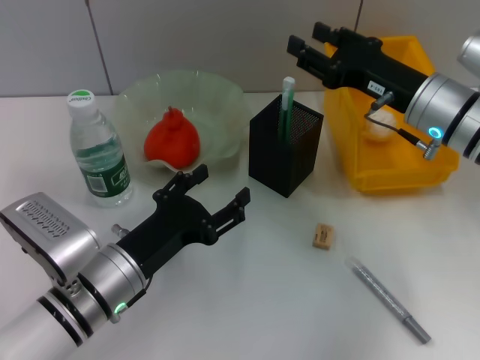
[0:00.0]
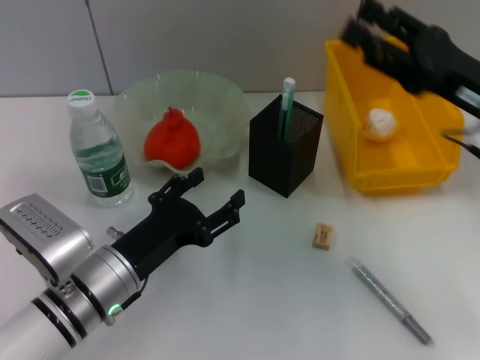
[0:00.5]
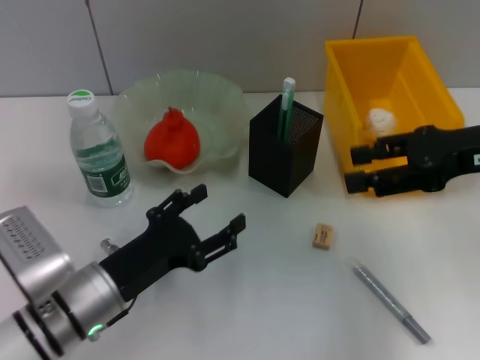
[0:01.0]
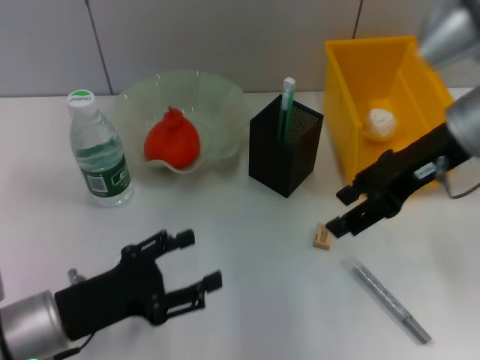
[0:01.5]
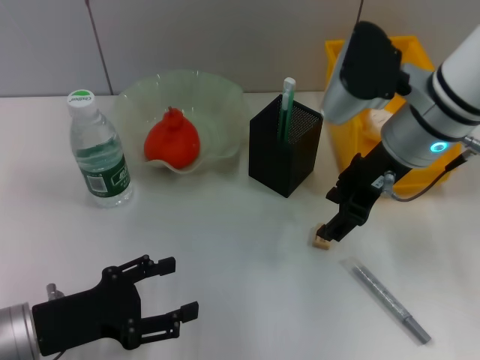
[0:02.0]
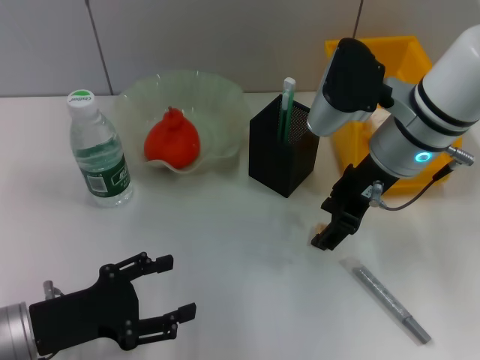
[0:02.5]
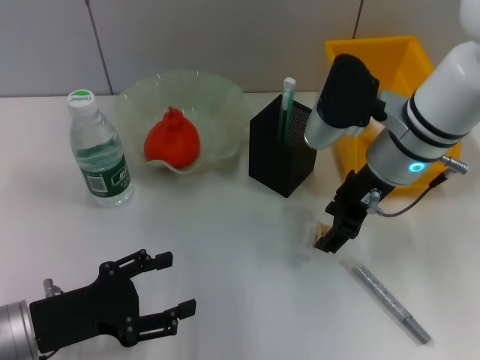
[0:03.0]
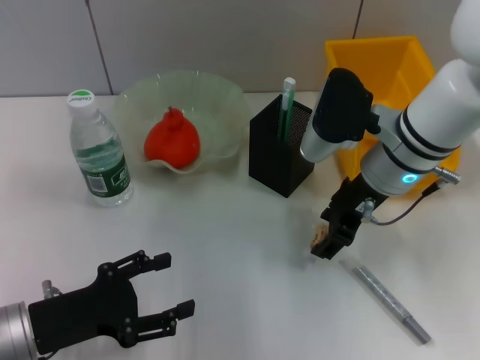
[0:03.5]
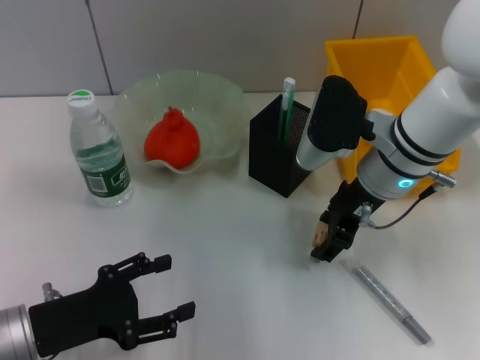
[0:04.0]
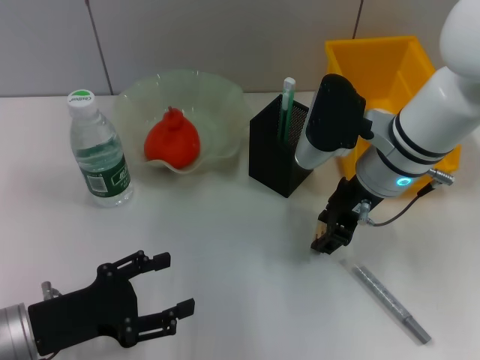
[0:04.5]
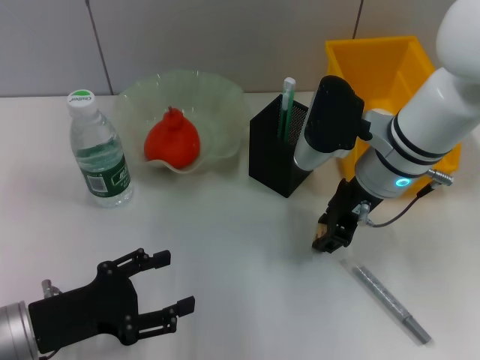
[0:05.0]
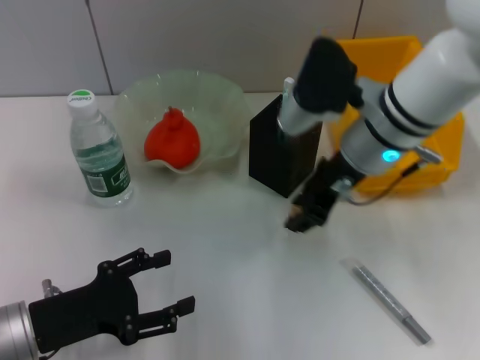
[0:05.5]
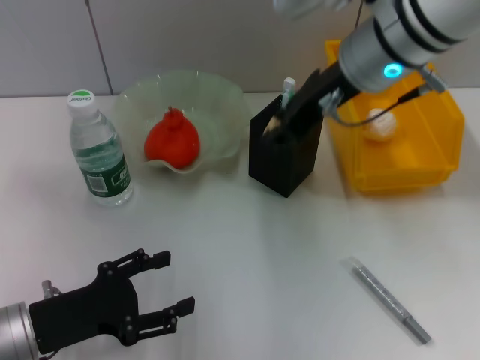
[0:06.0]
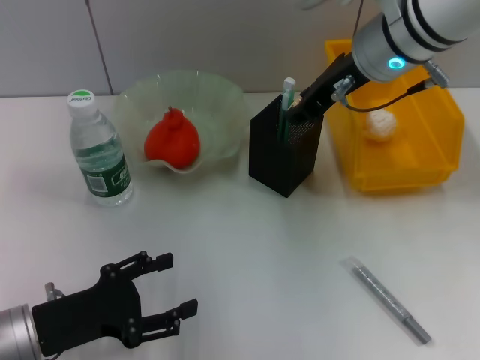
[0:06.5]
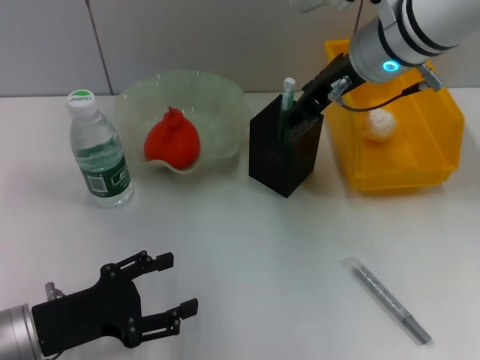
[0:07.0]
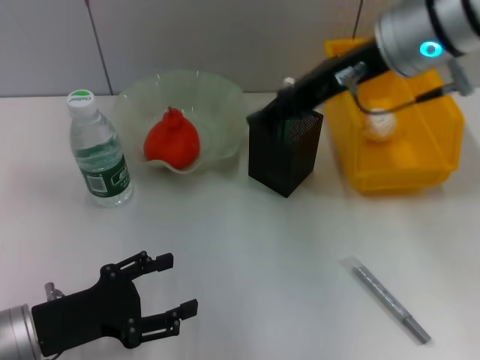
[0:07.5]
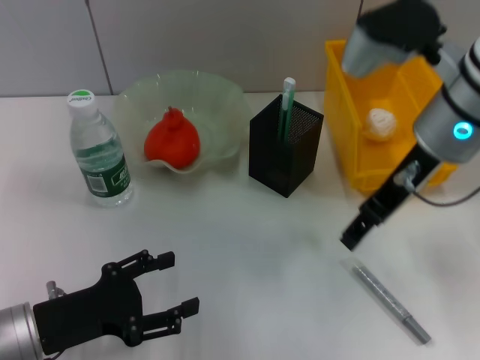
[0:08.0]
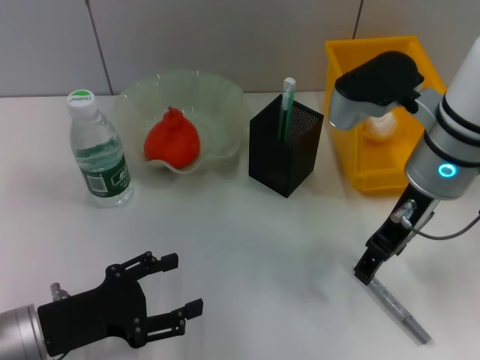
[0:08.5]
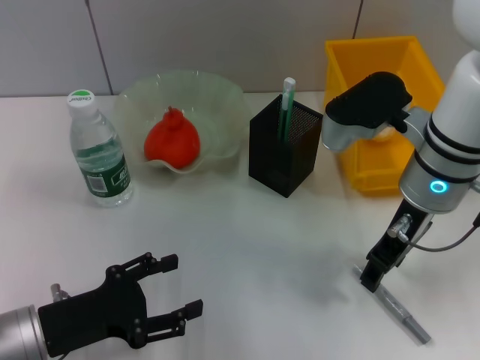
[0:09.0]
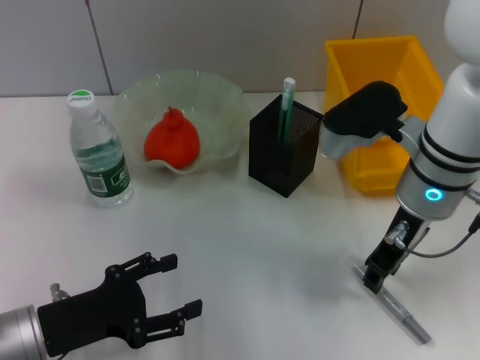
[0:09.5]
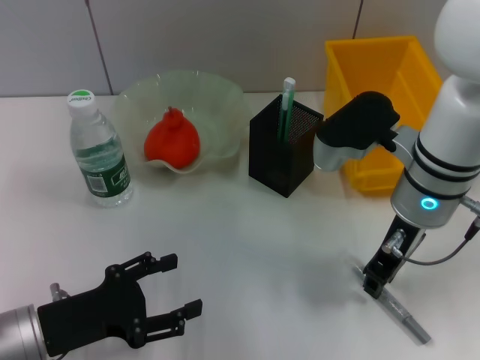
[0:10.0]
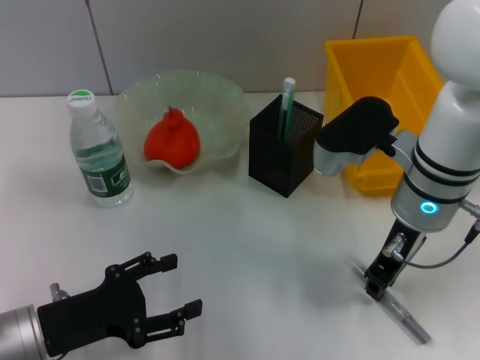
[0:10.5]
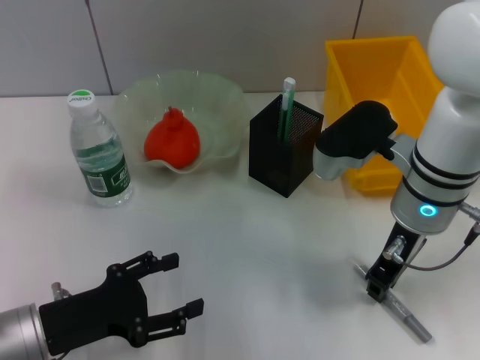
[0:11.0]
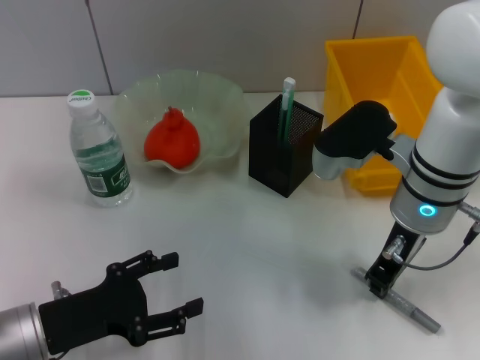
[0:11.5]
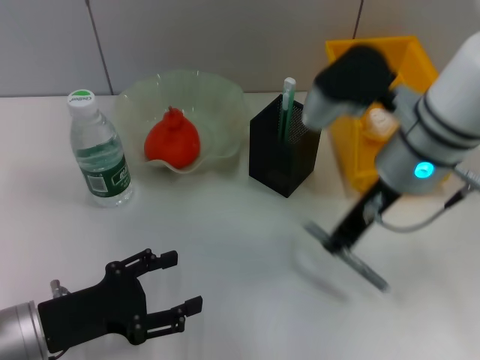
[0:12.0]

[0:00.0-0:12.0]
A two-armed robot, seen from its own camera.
Step, 0:00.5 to 0:05.0: Grab the eraser with the right hand.
Step, 0:05.5 to 0:07.0: Put the eraser into the pen holder with the right hand.
Step, 0:07.5 to 0:11.5: Grab the gray glue with the right hand.
0:00.0 to 0:02.0: The left gripper heads to the left, covering some 10 cm; the right gripper goes approximately 10 cm upward and to the left, and opens up.
0:02.0 to 0:04.0: The right gripper moves downward, approximately 5 cm.
0:04.0 to 0:06.0: The right gripper goes some 10 cm upward, and closes its fingers.
0:06.0 to 0:08.0: The right gripper shifts by about 5 cm, and opens its fingers.
0:08.0 to 0:10.0: The right gripper heads downward, covering some 5 cm, and closes up.
0:10.0 to 0:12.0: The right gripper closes its fingers.

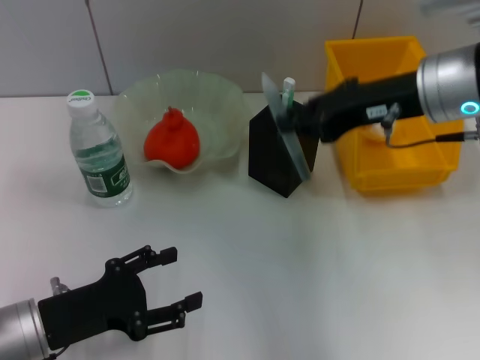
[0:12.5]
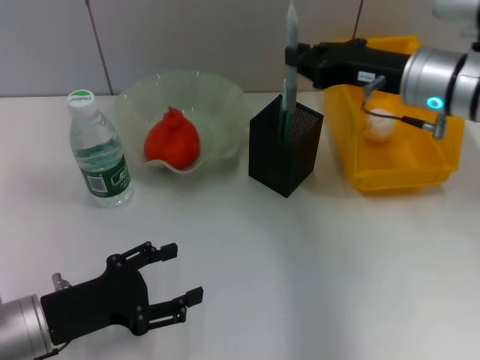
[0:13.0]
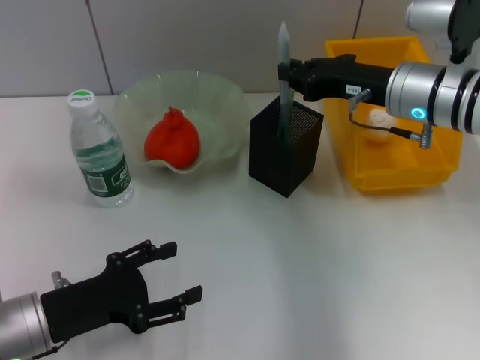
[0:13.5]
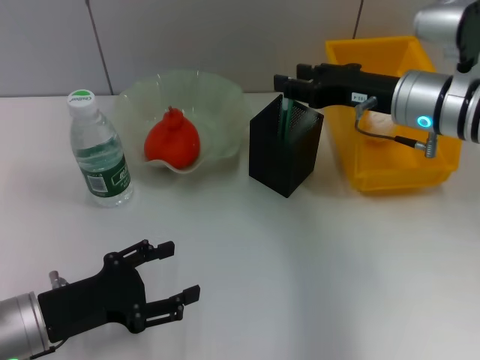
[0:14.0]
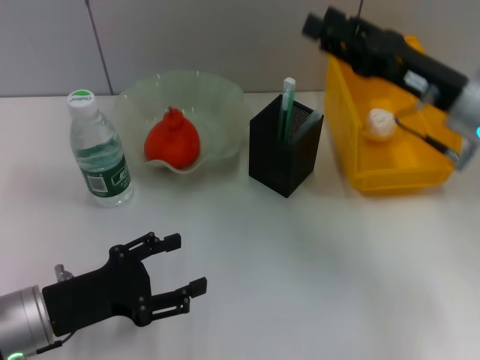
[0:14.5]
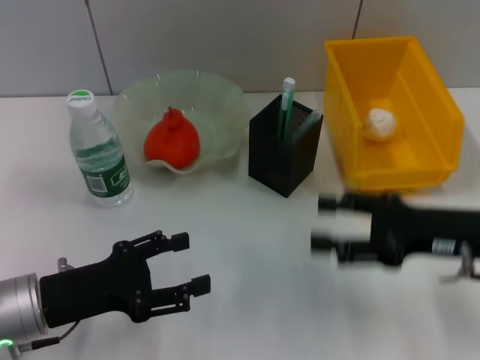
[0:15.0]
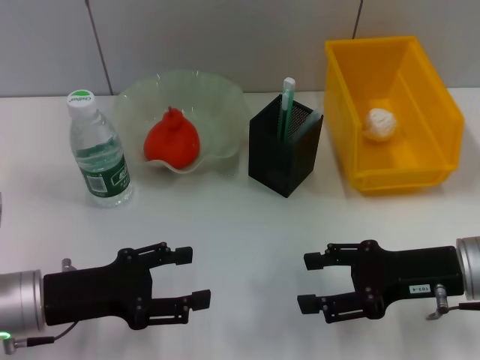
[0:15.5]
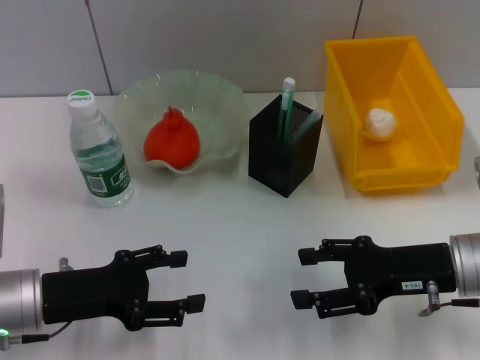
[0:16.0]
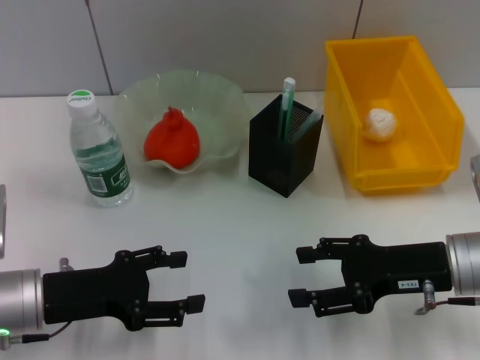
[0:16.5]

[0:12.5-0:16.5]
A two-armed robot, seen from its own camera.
0:12.5 to 0:14.5: The right gripper is displaced downward by approximately 5 cm, and opens up.
0:14.5 to 0:16.5: The right gripper moves downward and backward, approximately 10 cm.

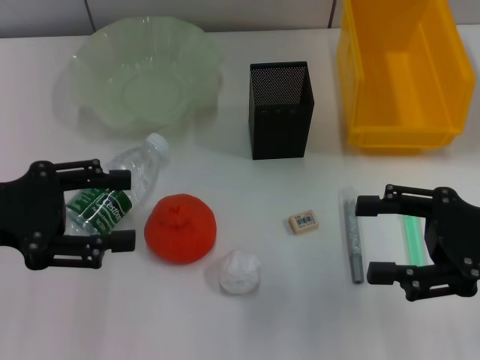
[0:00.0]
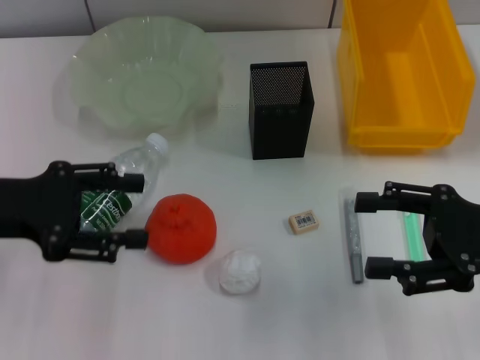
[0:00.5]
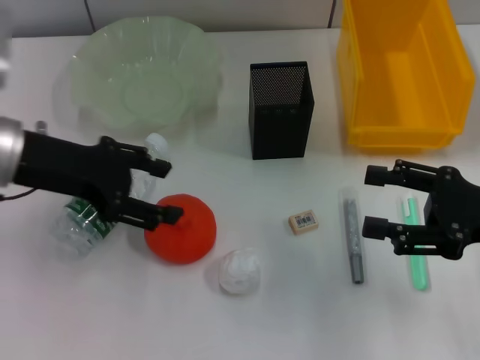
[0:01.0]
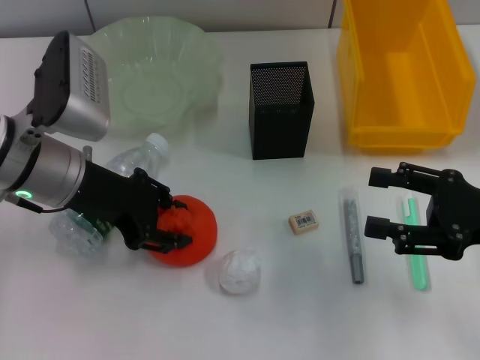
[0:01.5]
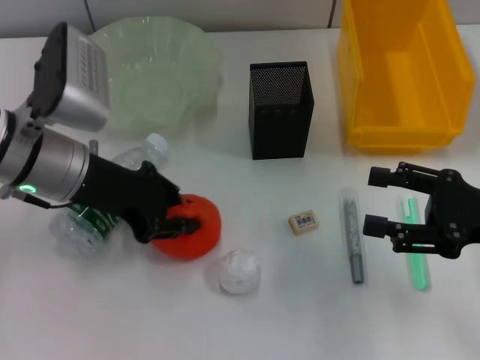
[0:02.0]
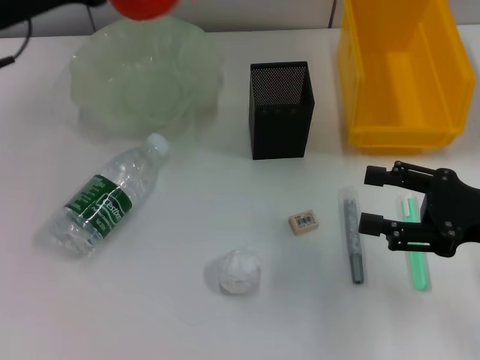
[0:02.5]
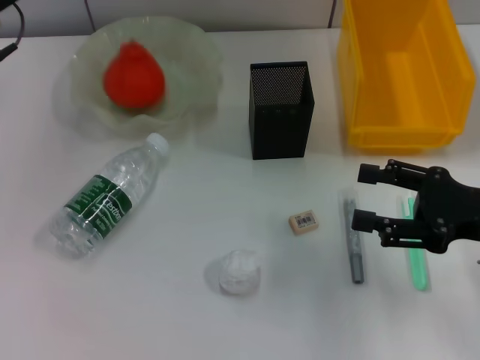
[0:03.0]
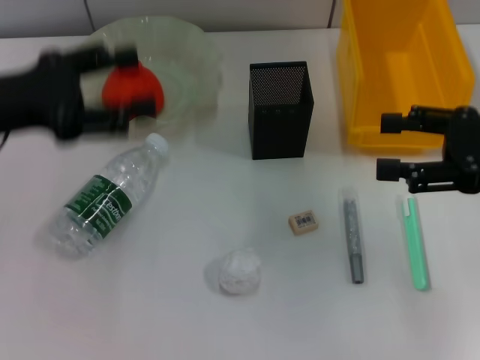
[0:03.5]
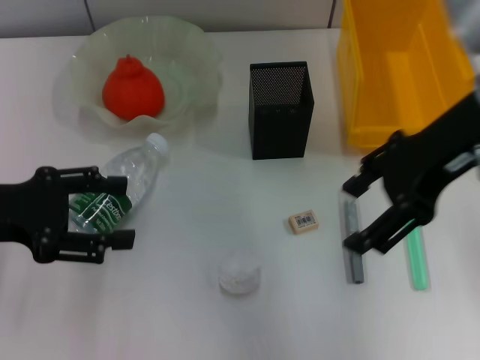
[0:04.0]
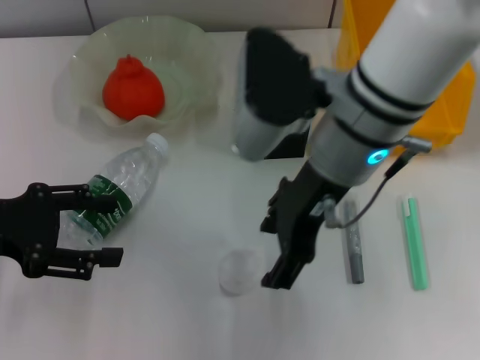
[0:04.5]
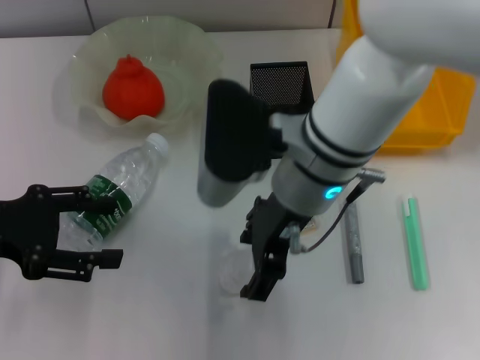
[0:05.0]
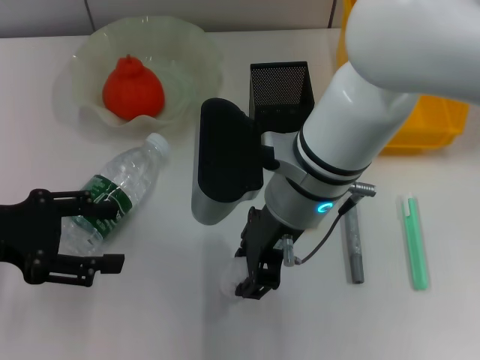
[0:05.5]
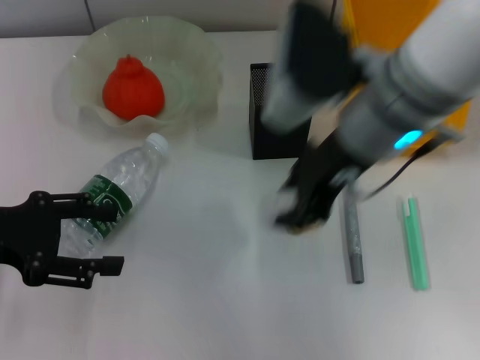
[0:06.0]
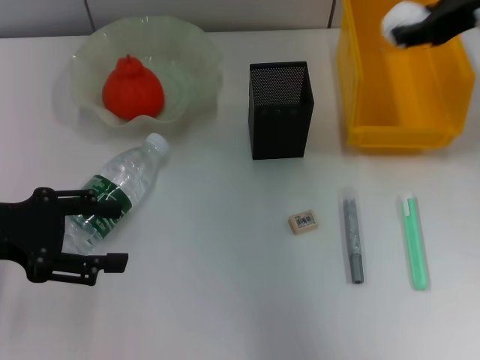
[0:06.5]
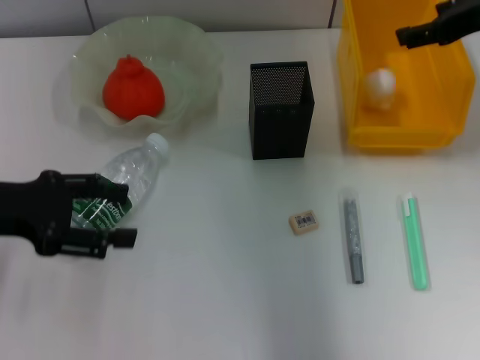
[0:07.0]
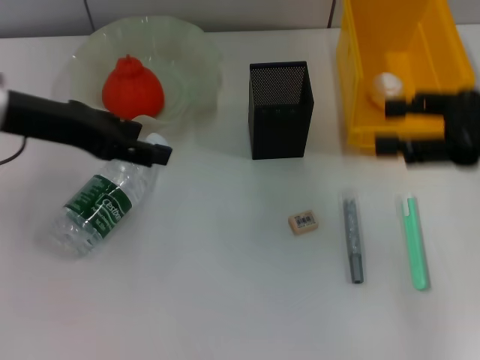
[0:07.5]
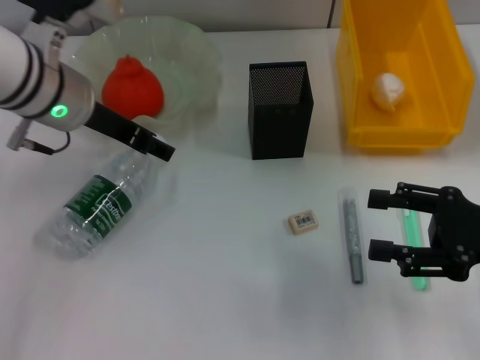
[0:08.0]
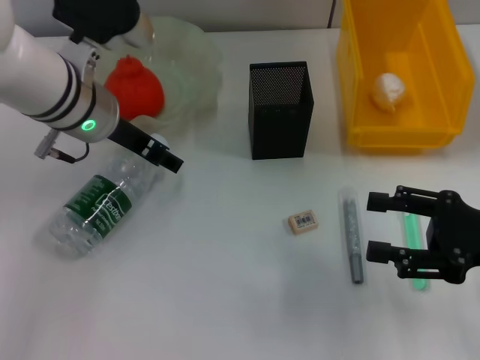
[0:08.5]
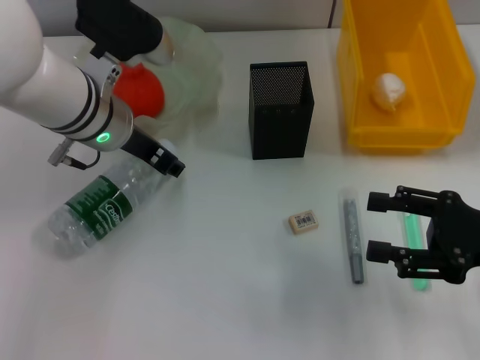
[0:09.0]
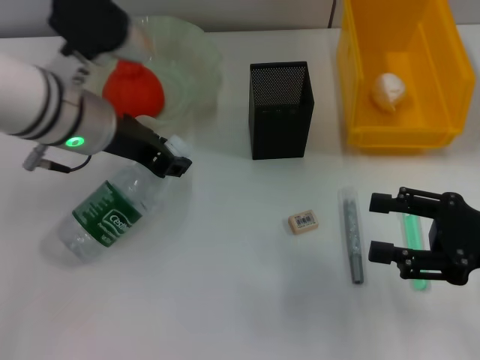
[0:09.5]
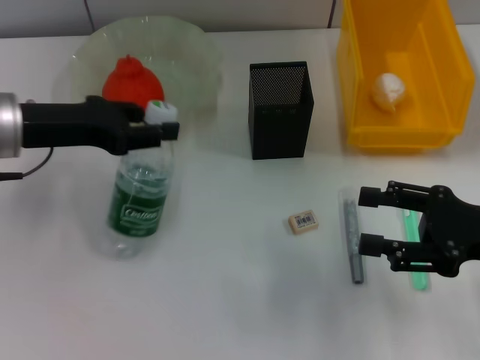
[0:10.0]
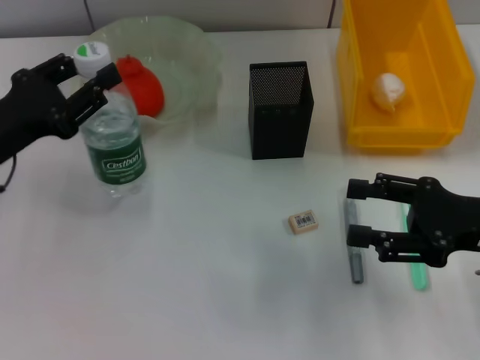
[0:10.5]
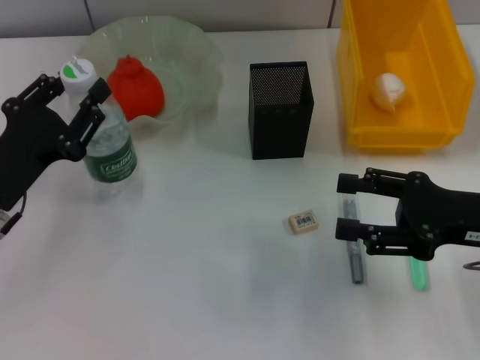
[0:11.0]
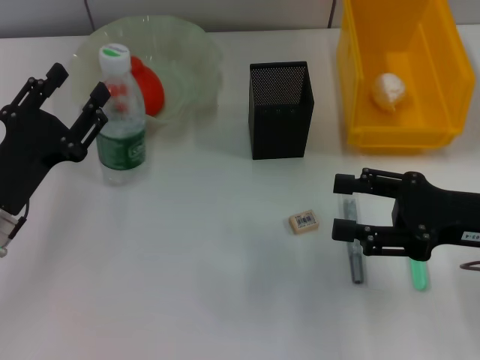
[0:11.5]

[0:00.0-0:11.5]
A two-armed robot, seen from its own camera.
Step, 0:00.0 to 0:01.5: Grab the orange with the left hand.
Step, 0:02.0 to 0:03.0: Place the orange into the fruit bowl with the left hand.
Step, 0:03.5 to 0:05.0: Grab the paper ball with the right hand.
Step, 0:06.0 to 0:06.5: Place the paper ball into the trash can with the right hand.
Step, 0:07.0 to 0:09.0: Grab the water bottle with the left hand.
0:00.0 to 0:02.0: The left gripper heads to the right and forward, covering roughly 15 cm, and closes up.
0:02.0 to 0:04.0: The left gripper goes roughly 15 cm to the left and backward, and opens, while the right gripper heads upward, to the left and forward, covering about 20 cm.
0:04.0 to 0:06.0: The right gripper shifts approximately 5 cm to the left, and closes up.
0:06.0 to 0:07.5: The right gripper is displaced to the right by roughly 20 cm, and opens, while the left gripper goes about 15 cm to the right, forward and upward.
0:07.5 to 0:09.5: The left gripper travels to the right by roughly 5 cm, and closes. The right gripper shifts about 10 cm downward and backward.
0:09.5 to 0:11.5: The left gripper shifts approximately 15 cm downward, backward and to the left.
